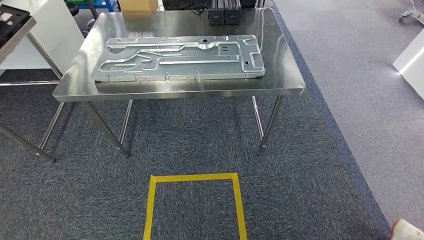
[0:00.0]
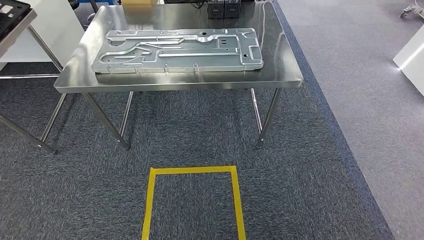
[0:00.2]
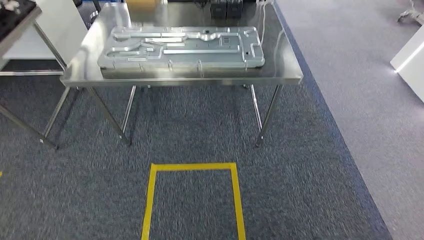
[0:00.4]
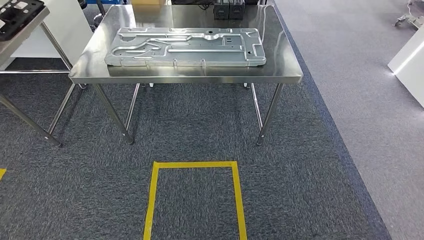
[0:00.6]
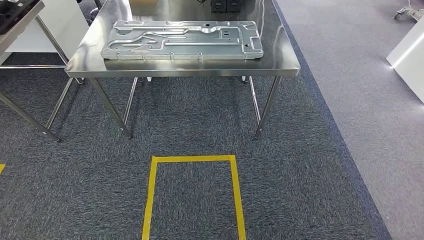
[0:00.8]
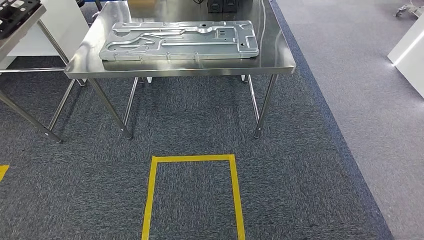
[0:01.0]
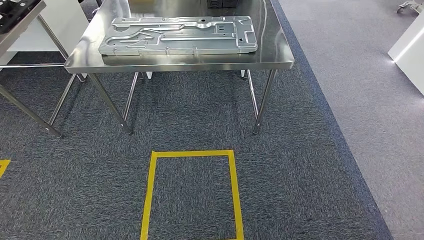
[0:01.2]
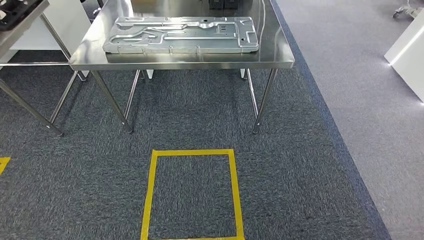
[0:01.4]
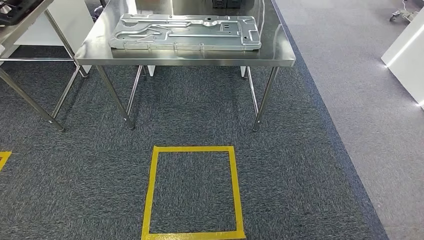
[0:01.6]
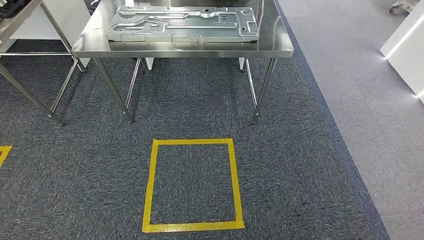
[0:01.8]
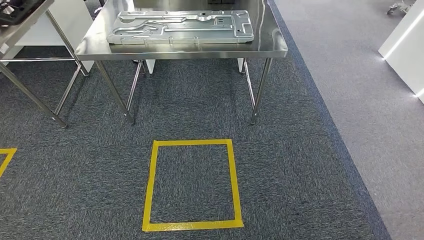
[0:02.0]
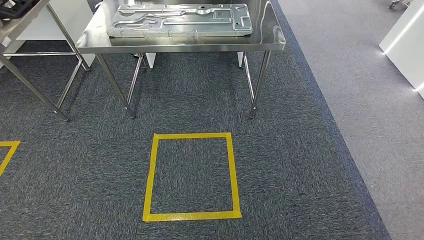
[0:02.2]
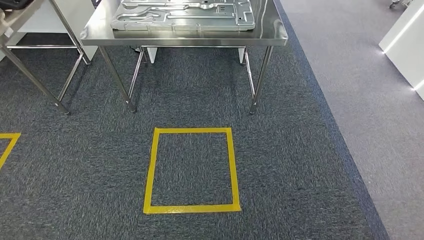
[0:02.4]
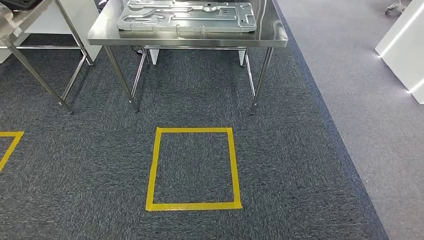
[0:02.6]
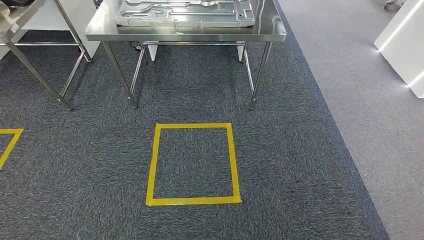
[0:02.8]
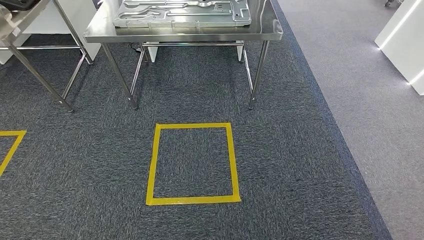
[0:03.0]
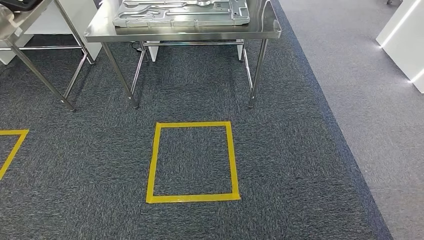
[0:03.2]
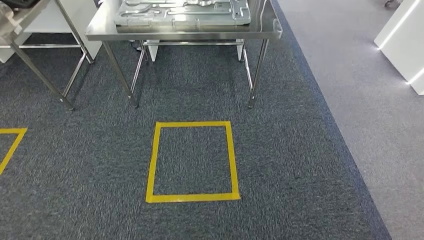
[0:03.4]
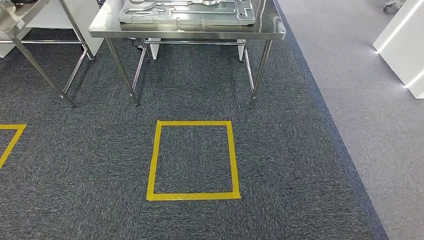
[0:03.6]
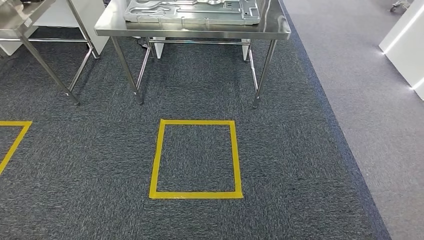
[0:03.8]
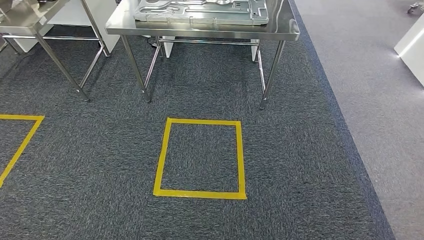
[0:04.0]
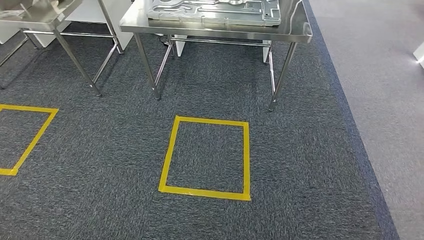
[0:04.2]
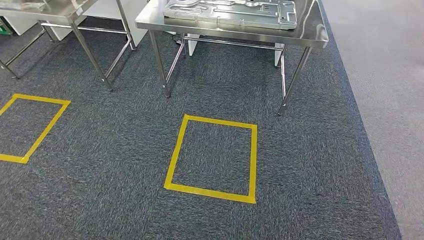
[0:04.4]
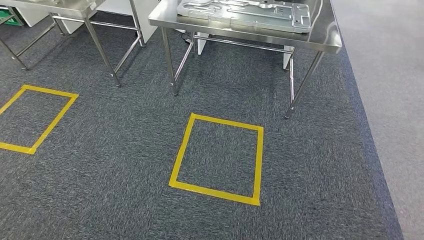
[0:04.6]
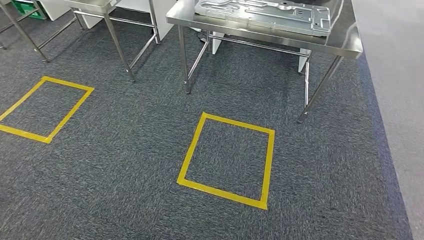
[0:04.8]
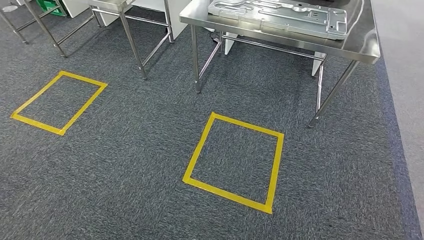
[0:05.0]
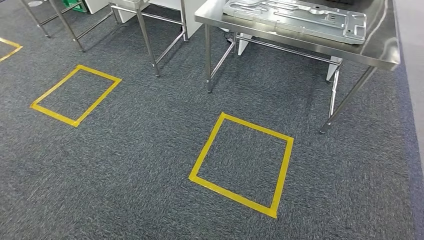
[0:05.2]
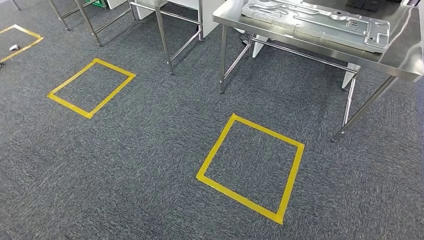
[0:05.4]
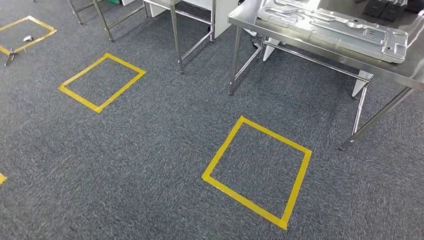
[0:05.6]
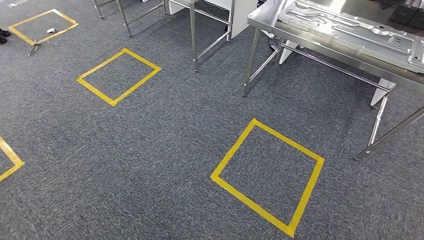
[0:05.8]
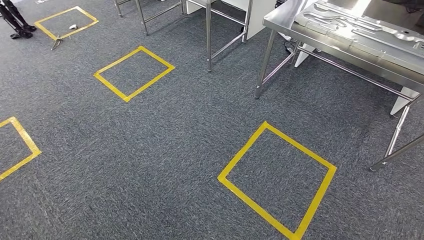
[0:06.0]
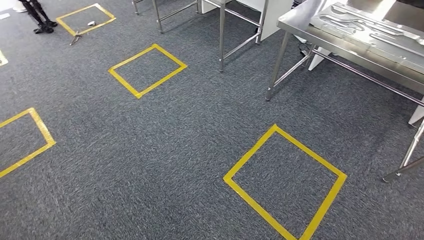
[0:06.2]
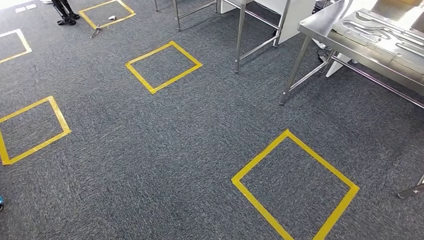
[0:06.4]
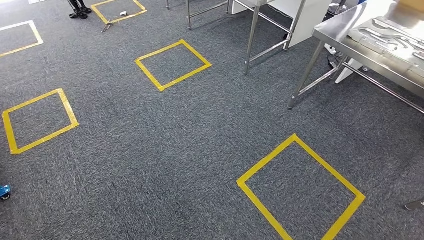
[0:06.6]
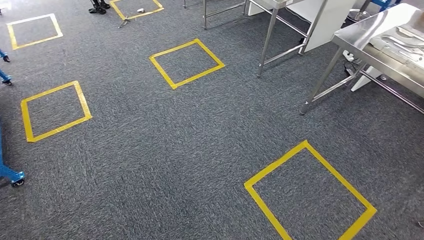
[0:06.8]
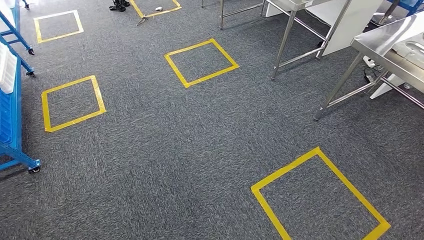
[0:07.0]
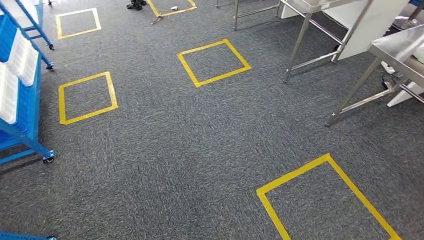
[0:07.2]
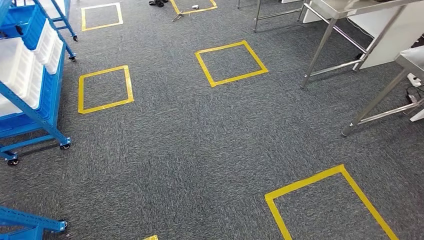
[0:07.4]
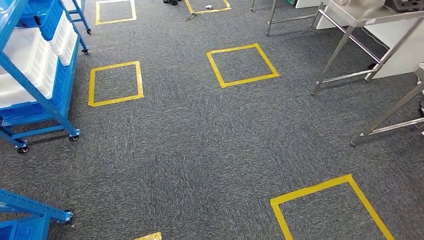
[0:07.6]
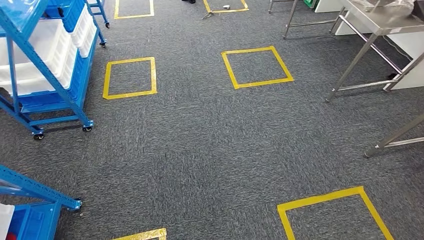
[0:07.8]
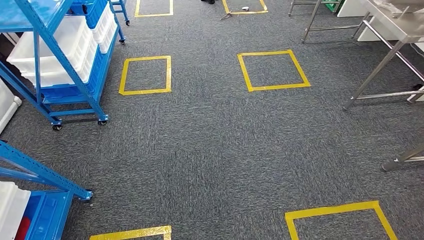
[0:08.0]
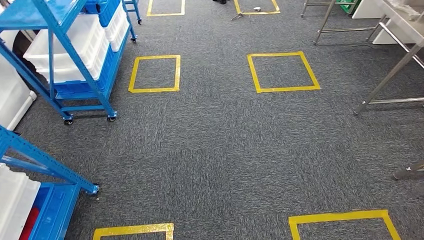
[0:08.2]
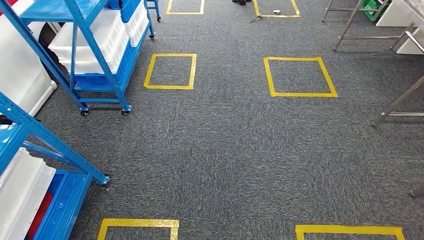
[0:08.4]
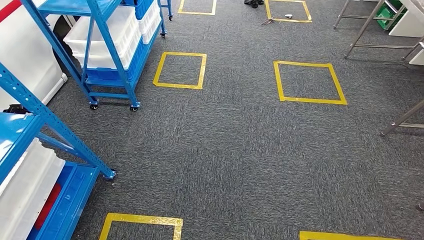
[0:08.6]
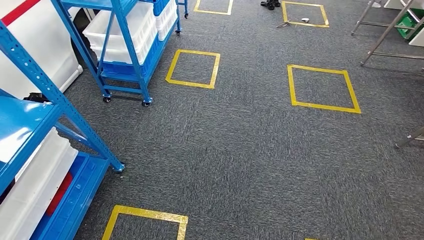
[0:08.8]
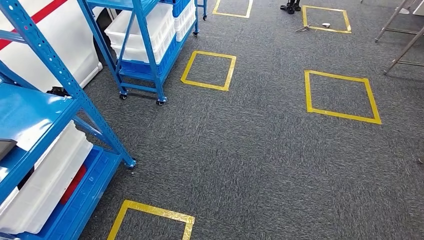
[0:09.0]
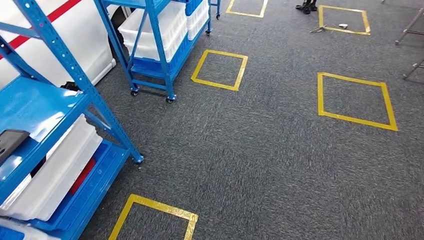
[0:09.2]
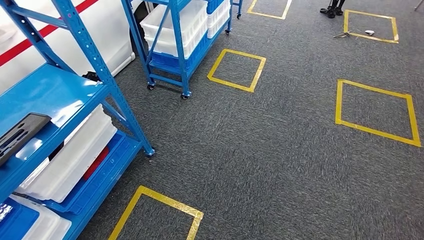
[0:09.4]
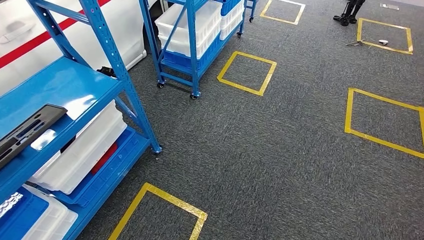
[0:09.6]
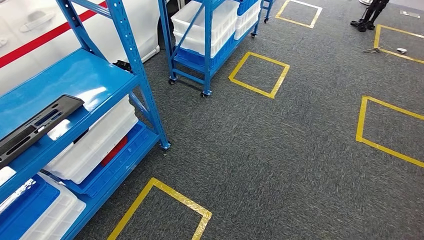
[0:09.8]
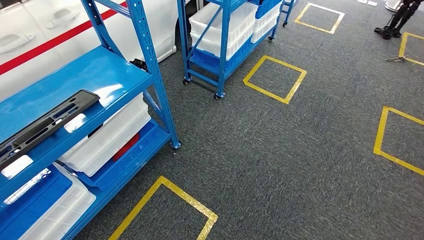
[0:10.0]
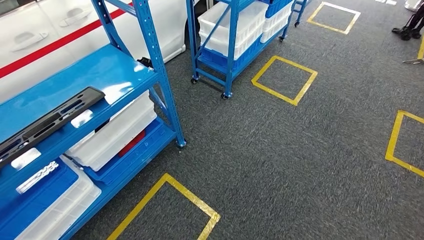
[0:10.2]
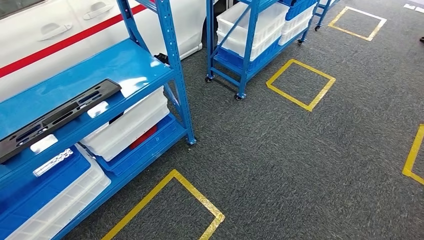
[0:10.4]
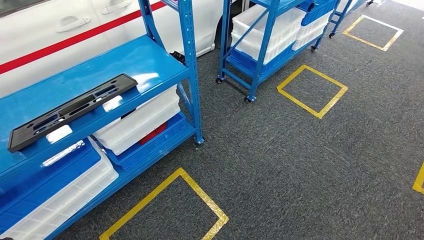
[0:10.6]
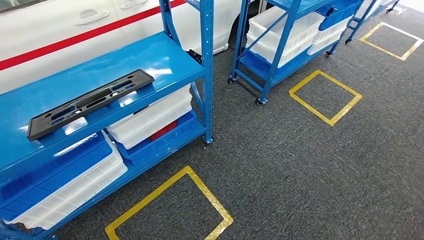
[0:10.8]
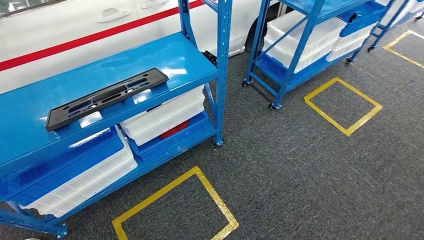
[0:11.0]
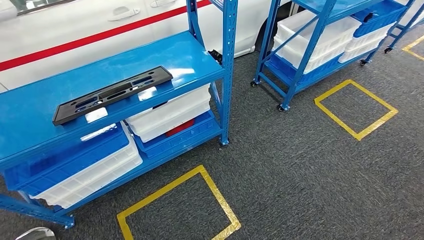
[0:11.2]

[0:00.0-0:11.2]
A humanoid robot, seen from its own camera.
Step, 0:05.6 to 0:11.2: Move to the initial position of the shelf.
